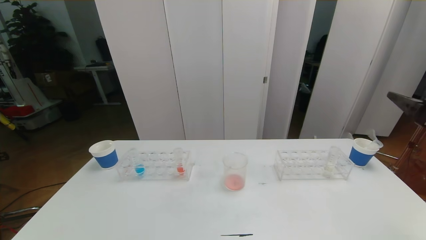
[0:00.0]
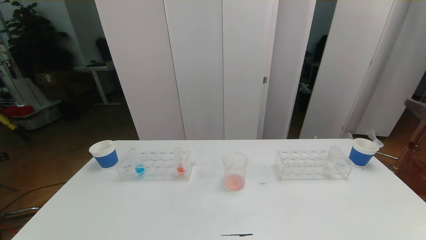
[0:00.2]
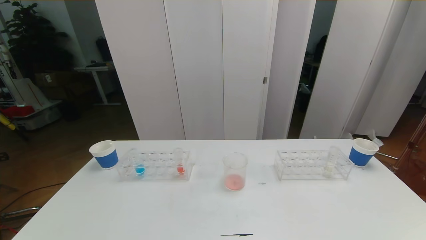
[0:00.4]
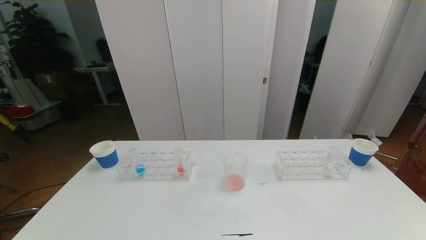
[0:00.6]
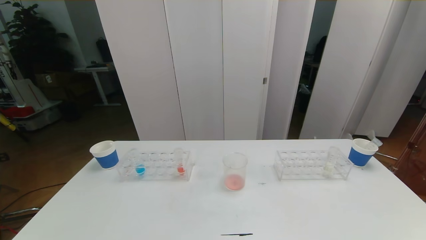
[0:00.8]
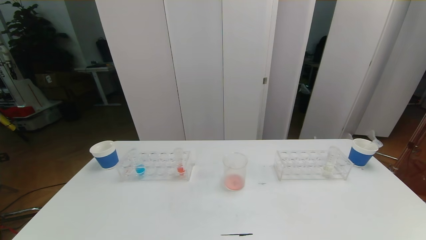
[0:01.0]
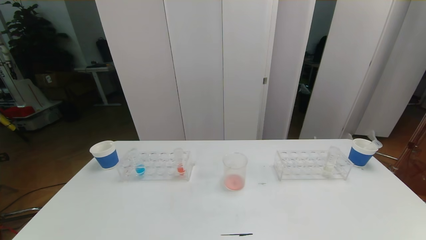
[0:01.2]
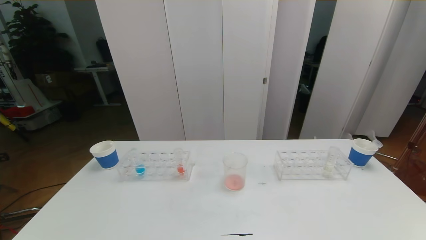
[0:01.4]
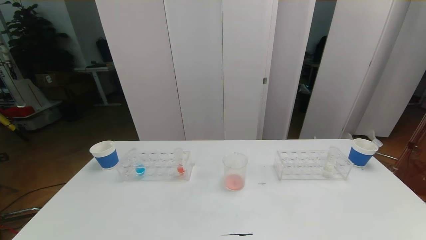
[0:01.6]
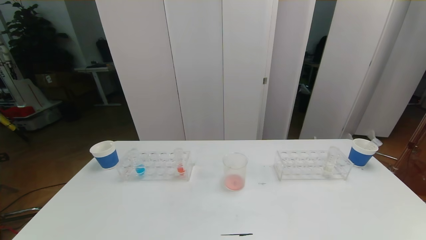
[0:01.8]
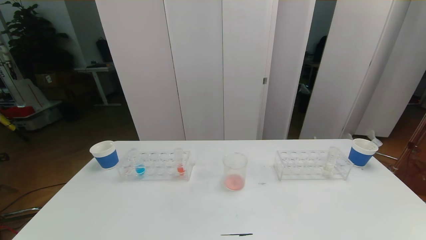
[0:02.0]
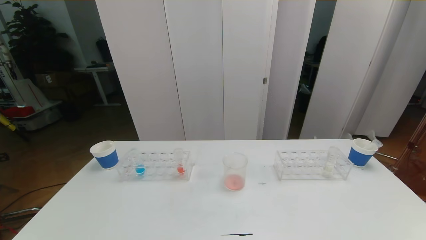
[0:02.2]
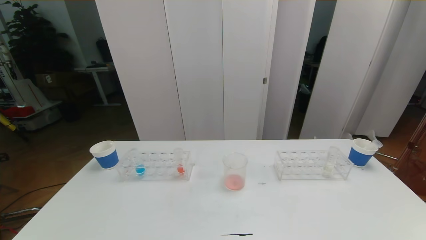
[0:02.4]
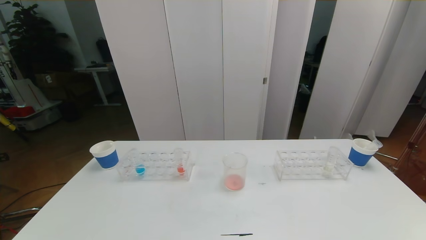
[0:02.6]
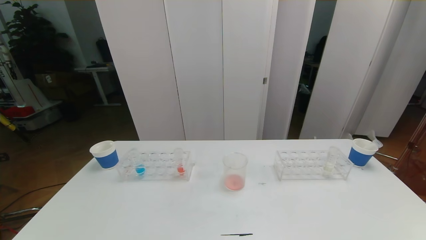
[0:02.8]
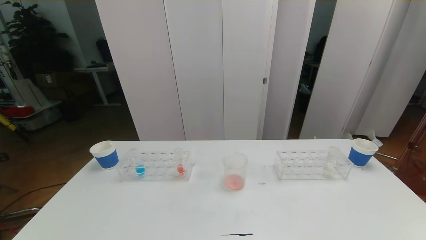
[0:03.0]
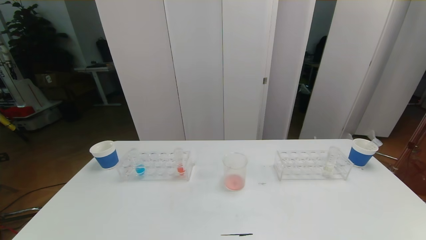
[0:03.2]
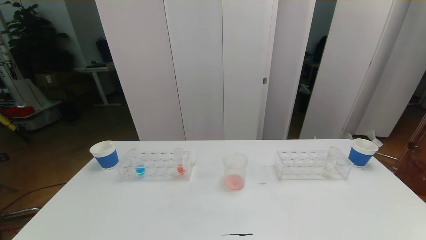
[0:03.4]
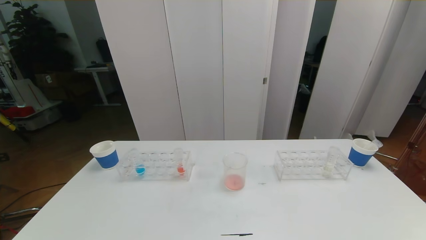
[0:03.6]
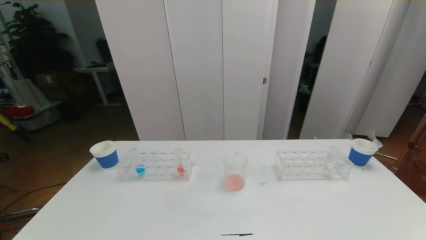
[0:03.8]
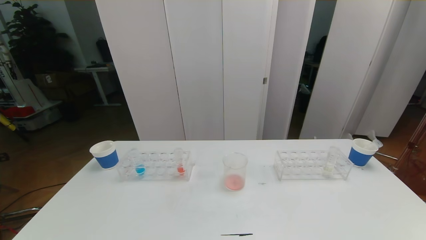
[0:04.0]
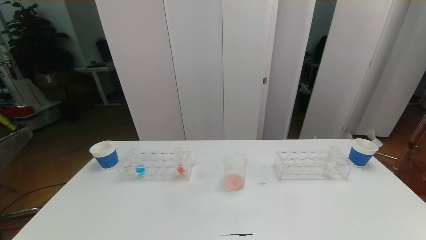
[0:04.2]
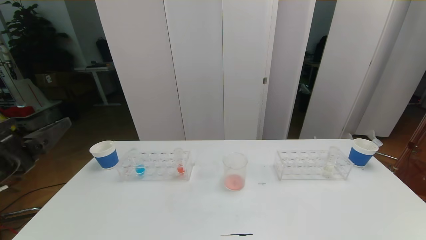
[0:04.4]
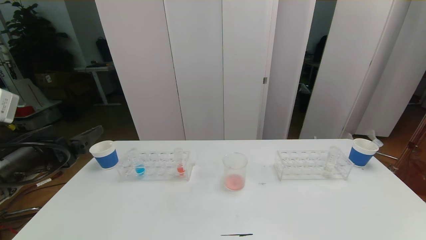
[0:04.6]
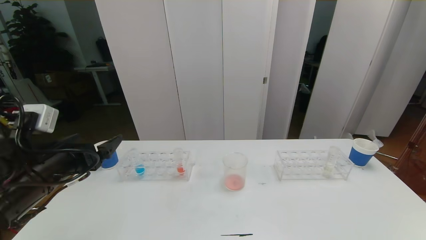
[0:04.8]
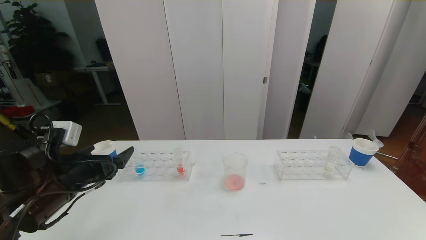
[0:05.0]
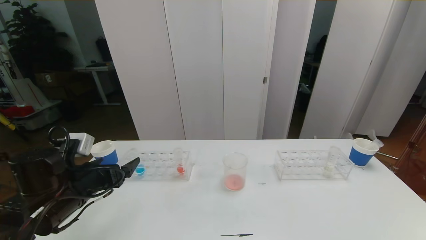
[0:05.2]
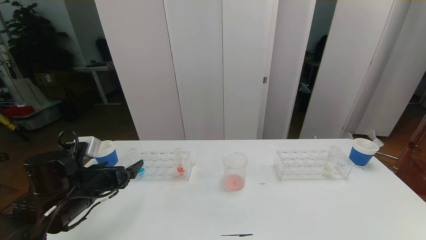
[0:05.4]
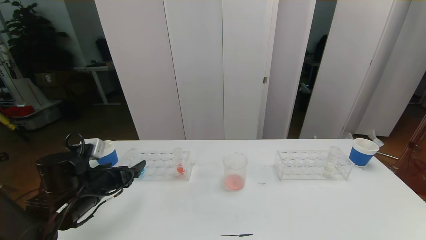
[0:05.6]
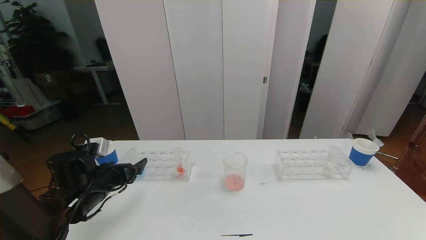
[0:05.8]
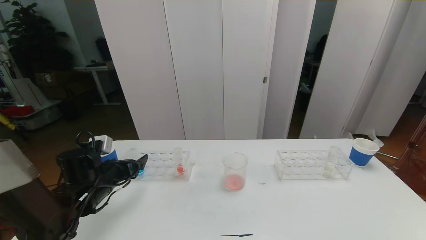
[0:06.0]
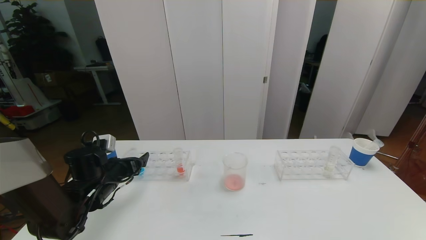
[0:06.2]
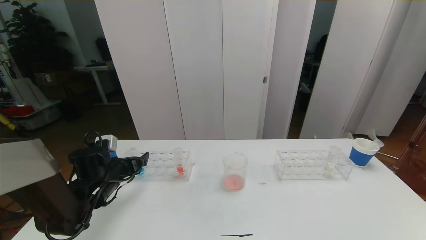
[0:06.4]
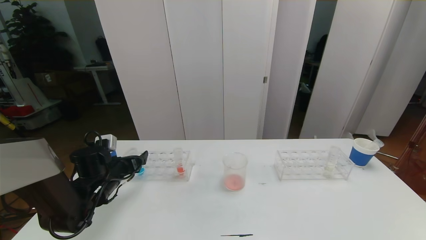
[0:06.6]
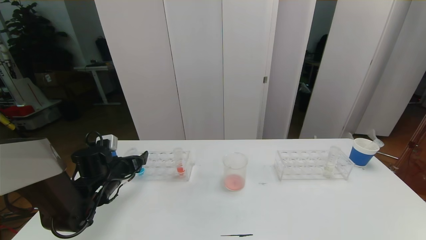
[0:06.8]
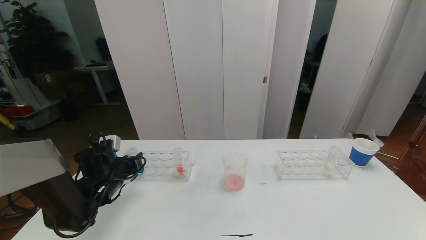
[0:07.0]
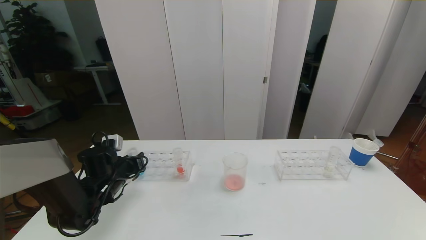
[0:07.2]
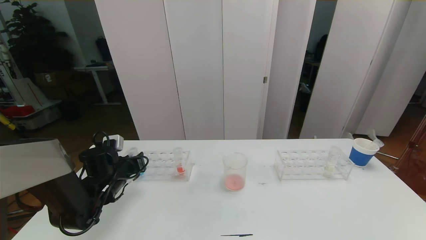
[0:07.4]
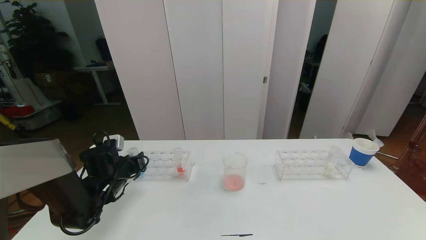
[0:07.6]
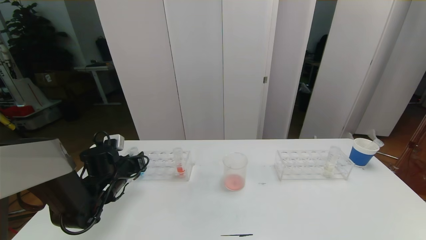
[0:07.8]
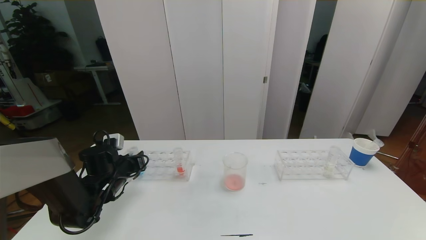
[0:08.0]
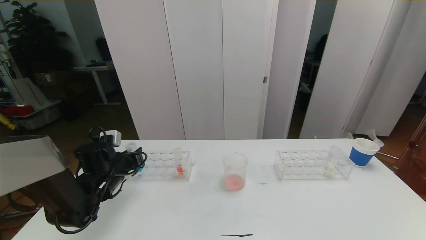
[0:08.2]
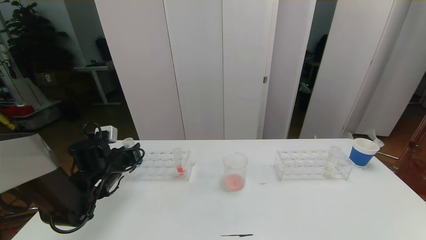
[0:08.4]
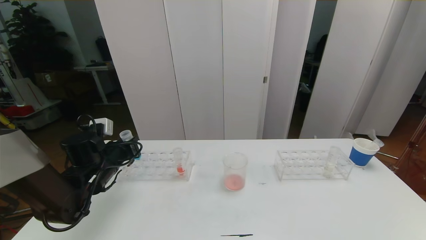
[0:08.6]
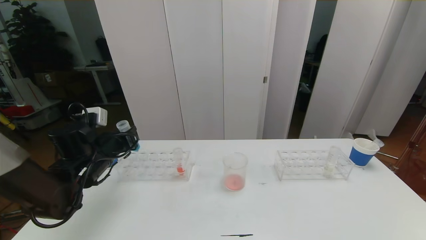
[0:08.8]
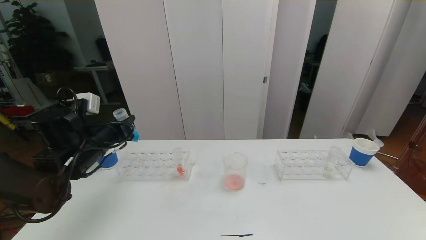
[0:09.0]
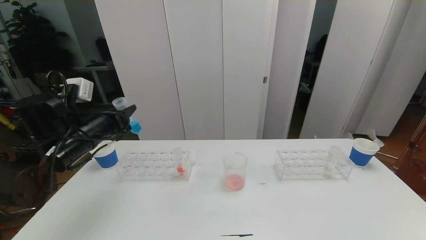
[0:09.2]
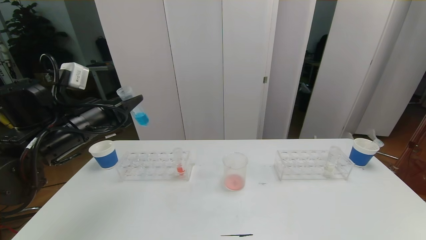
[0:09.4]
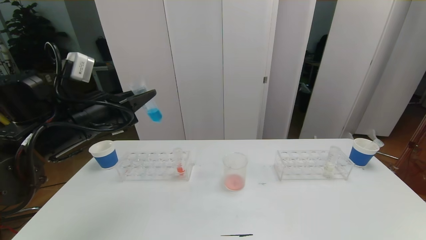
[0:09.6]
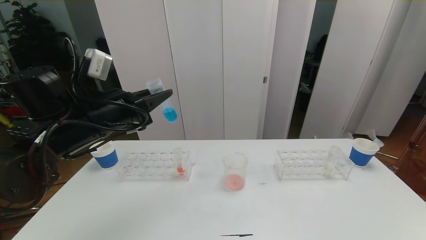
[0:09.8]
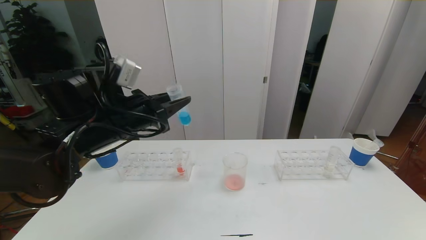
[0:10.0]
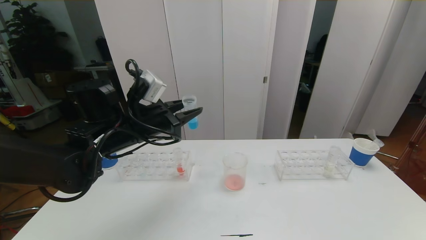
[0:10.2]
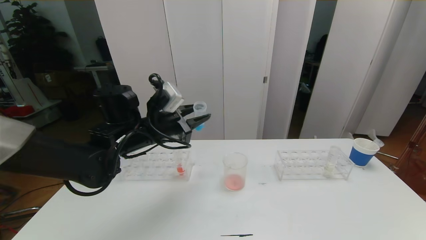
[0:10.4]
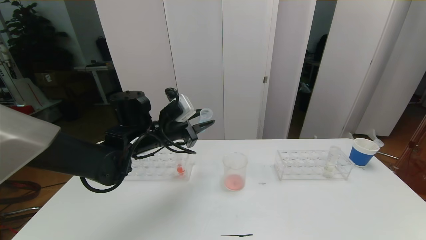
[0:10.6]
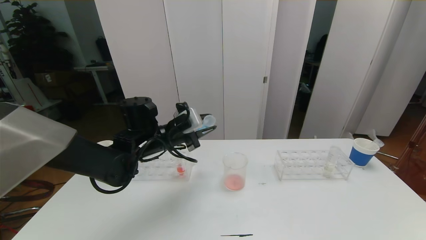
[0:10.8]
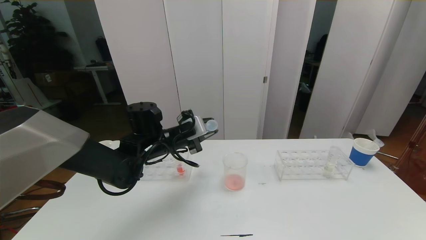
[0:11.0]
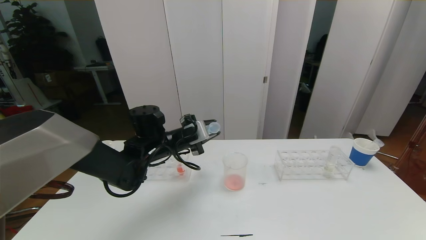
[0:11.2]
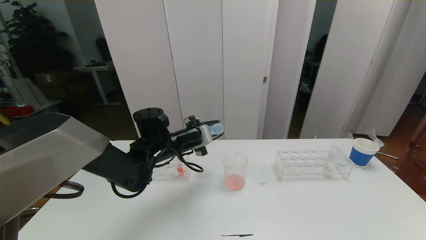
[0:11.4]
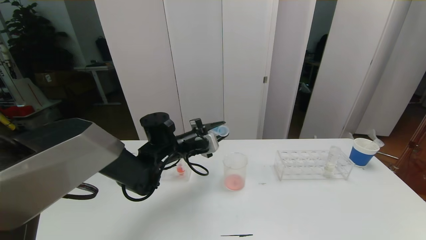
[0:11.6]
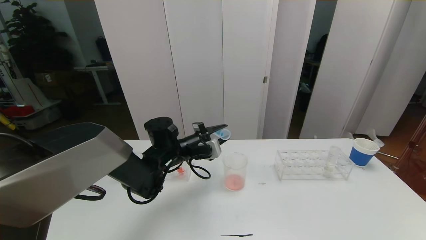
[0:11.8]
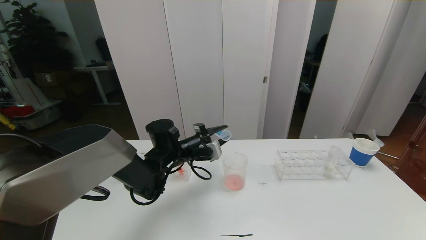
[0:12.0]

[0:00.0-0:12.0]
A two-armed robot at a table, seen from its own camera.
Task of the whole recording: pick up the test tube with red pigment the test tube with blue pigment and the test tube with white pigment by grippers and pour them into the beaker.
0:01.6 to 0:03.0: The two grippers keep their place.
0:04.4 to 0:06.0: The left gripper shifts about 25 cm downward and forward.
0:06.0 to 0:07.6: The left gripper moves about 5 cm, and closes up.
0:07.6 to 0:09.0: The left gripper goes approximately 10 cm upward.
0:09.0 to 0:10.4: The left gripper travels to the right by some 10 cm.
0:10.4 to 0:12.0: The left gripper shifts roughly 10 cm downward.

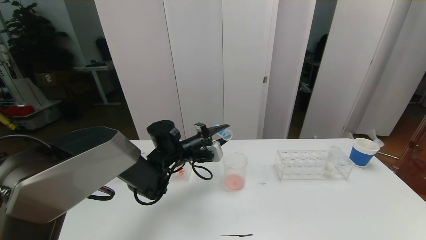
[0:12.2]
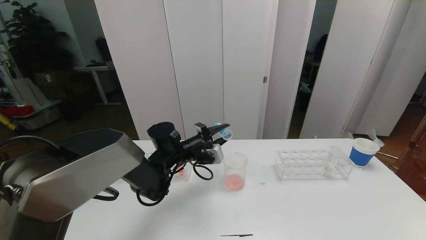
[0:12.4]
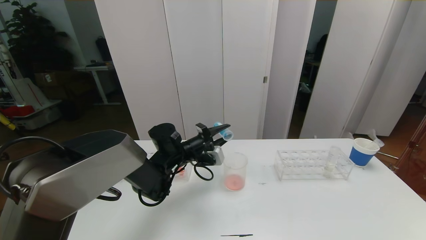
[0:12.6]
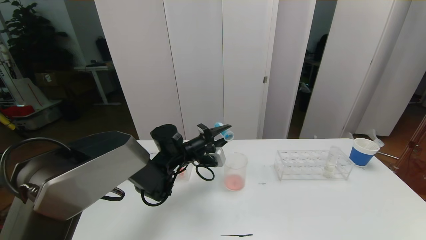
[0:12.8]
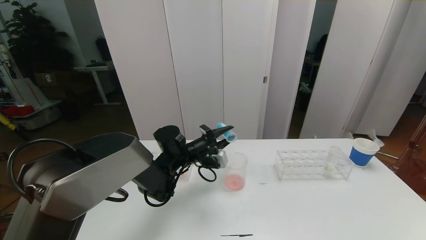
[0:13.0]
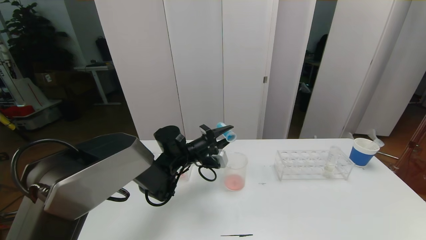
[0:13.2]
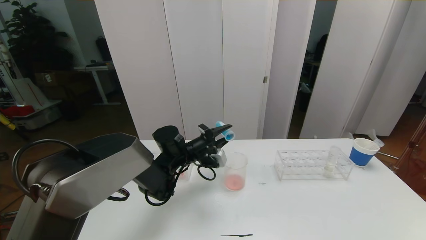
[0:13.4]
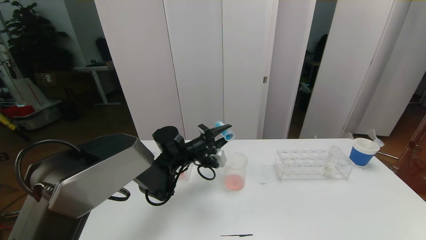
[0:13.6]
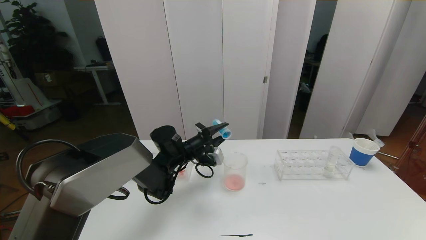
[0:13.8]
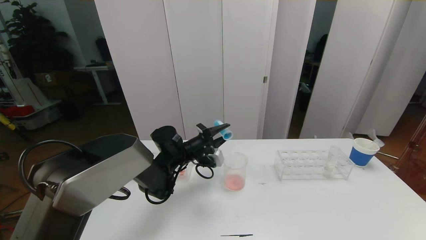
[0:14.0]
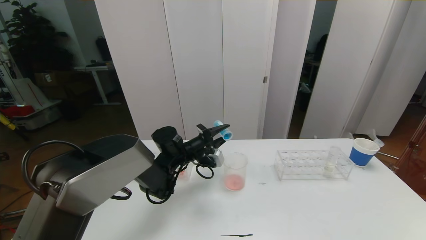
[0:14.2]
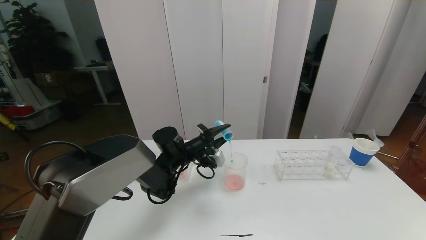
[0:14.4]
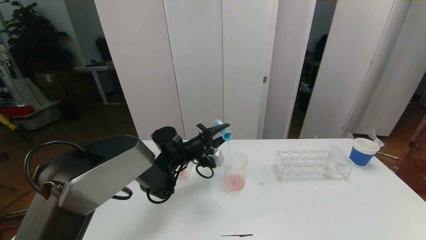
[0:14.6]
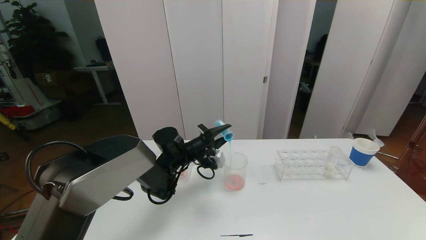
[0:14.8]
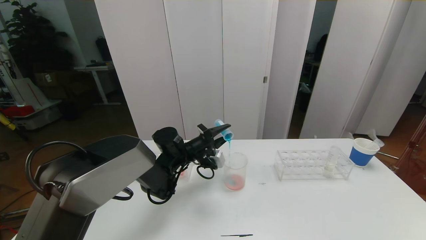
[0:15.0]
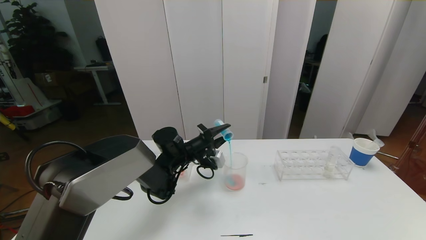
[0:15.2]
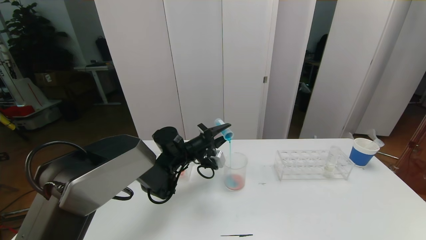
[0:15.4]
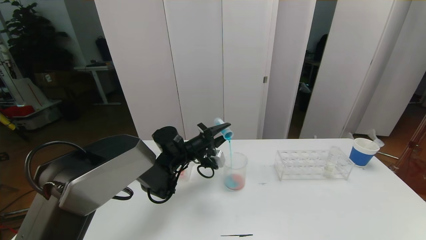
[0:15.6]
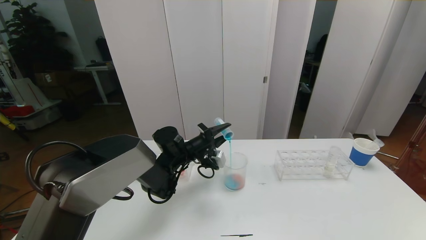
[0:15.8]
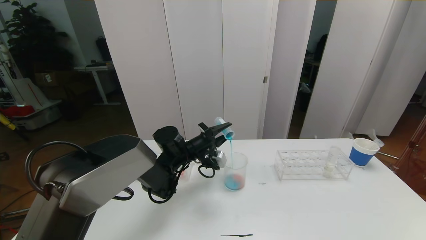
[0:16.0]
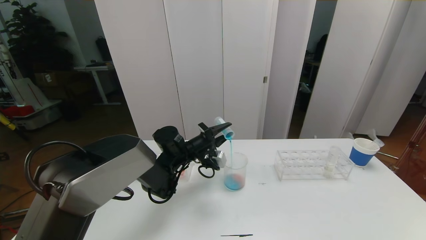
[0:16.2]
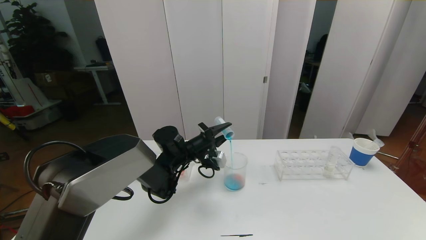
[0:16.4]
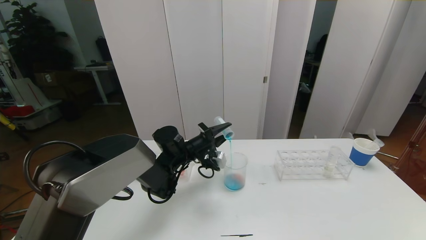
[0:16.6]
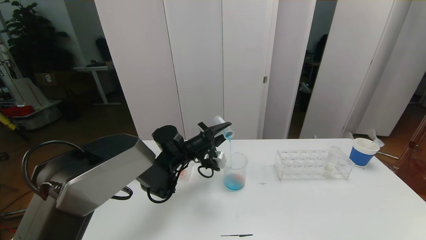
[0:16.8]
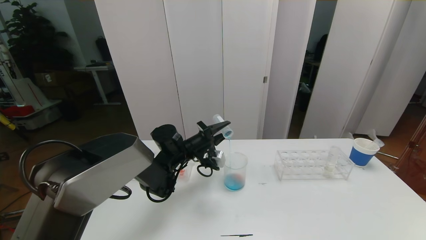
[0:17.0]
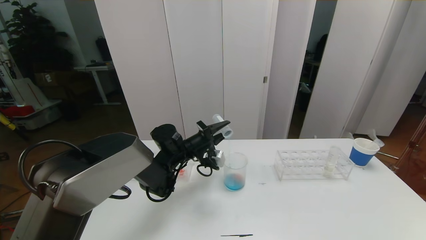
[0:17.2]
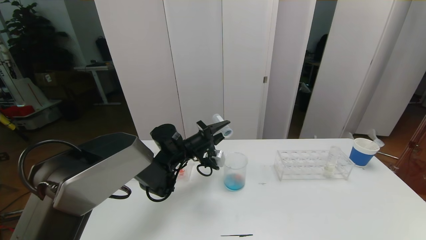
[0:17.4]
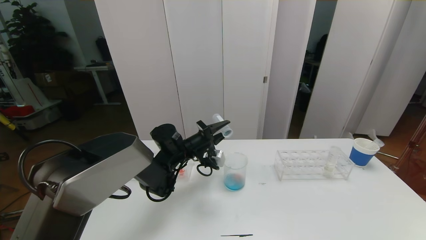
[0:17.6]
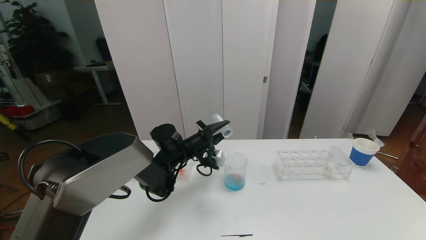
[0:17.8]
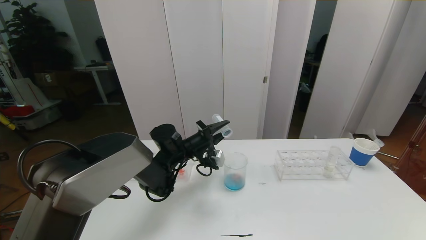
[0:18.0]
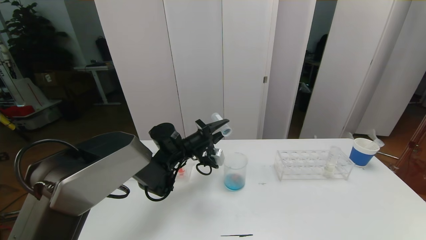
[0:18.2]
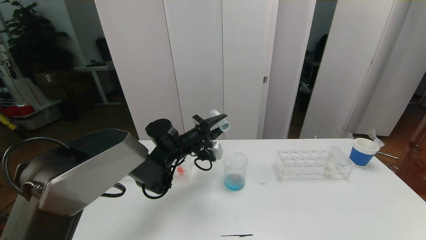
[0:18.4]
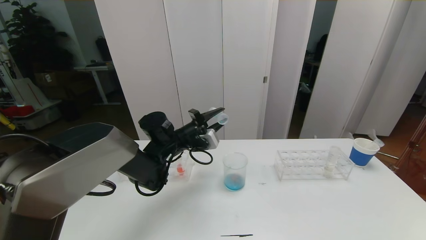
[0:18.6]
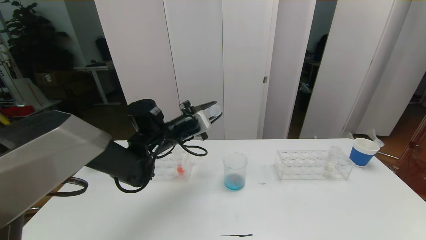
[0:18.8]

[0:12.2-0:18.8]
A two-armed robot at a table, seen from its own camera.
Task of the whole recording: pick up the test tube with red pigment the test tube with blue pigment and the test tube with white pigment by grippers and pour them into the beaker.
0:12.2 to 0:13.8: The grippers make only small movements.
0:13.8 to 0:15.4: The two grippers keep their place.
0:15.4 to 0:17.2: There are only small adjustments of the grippers.
0:17.2 to 0:18.8: The left gripper shifts some 10 cm upward.
